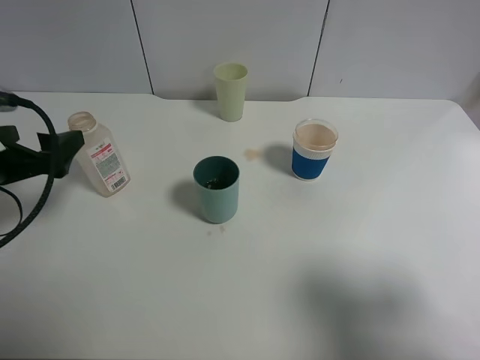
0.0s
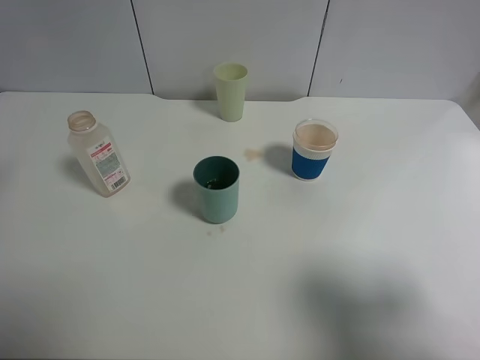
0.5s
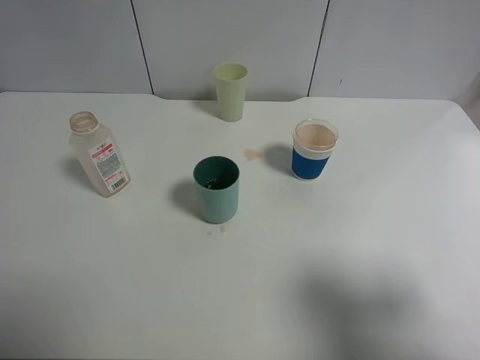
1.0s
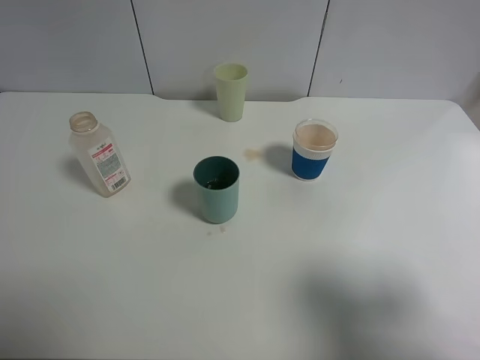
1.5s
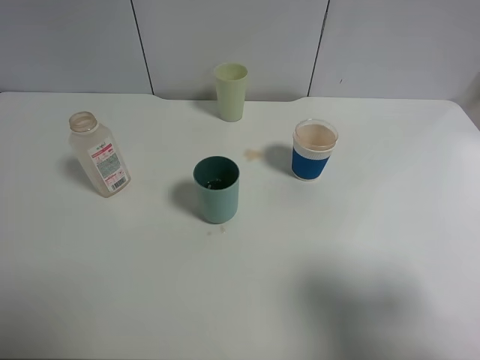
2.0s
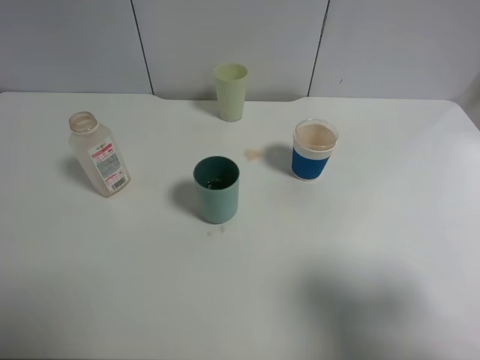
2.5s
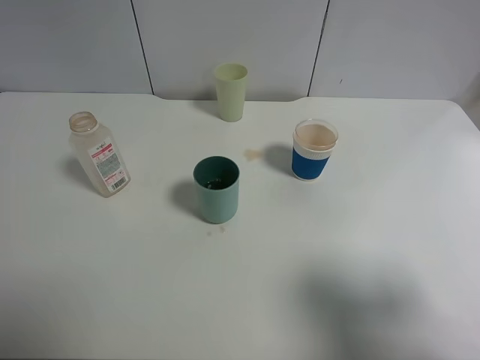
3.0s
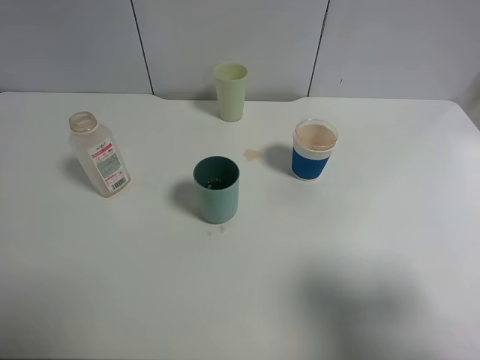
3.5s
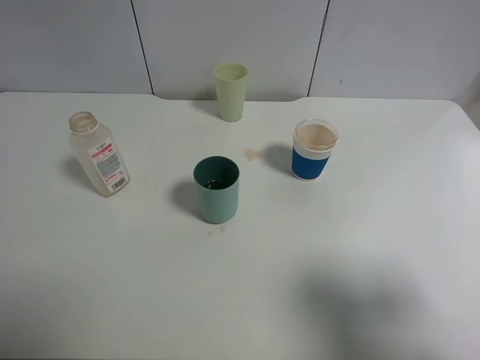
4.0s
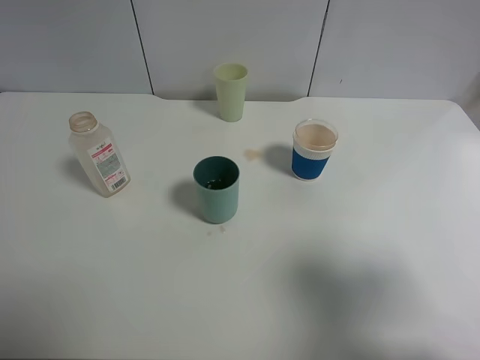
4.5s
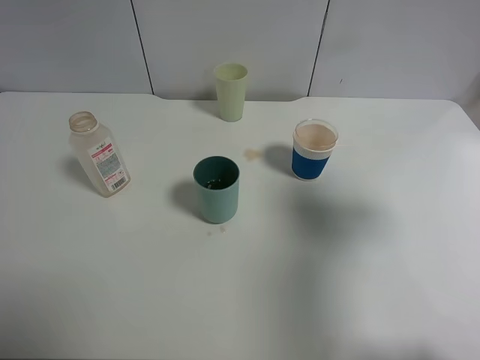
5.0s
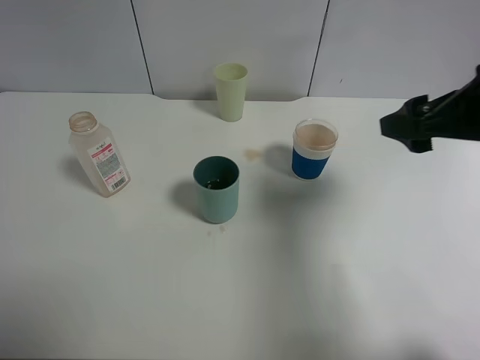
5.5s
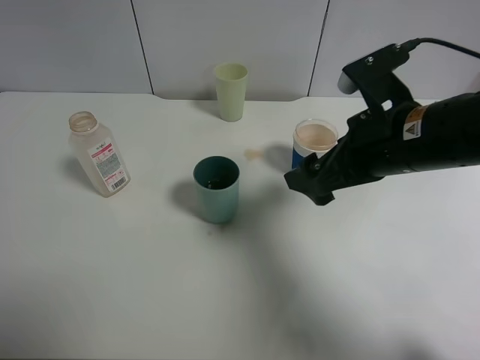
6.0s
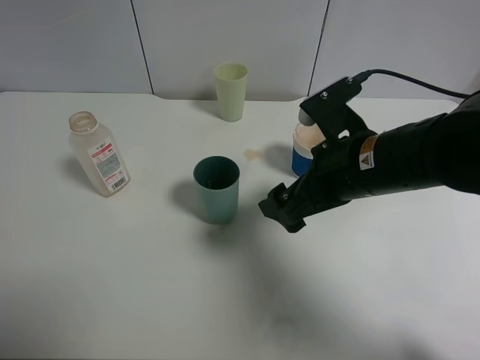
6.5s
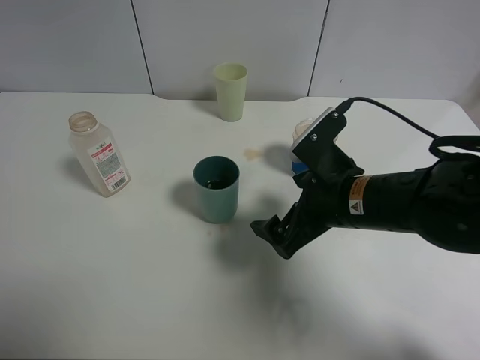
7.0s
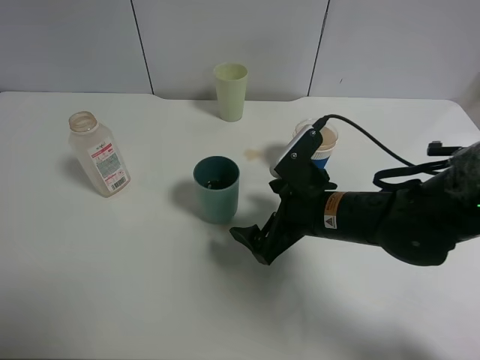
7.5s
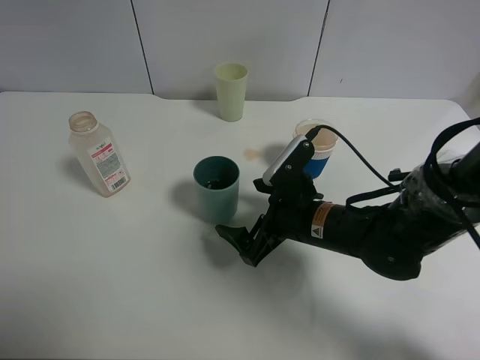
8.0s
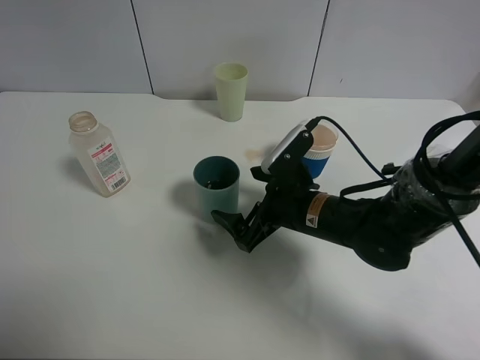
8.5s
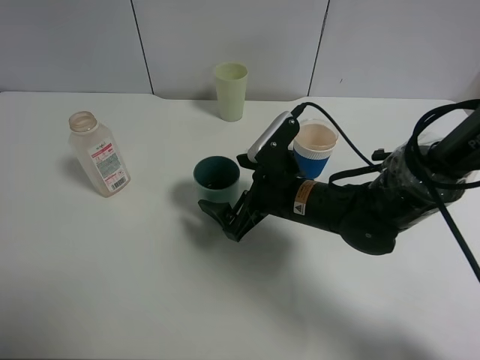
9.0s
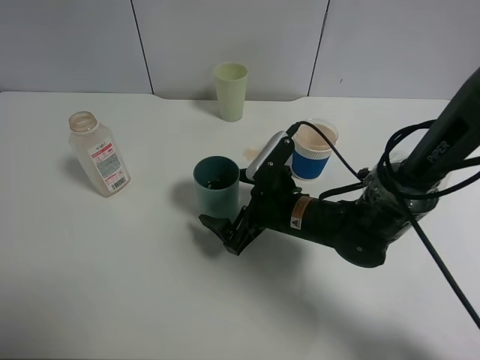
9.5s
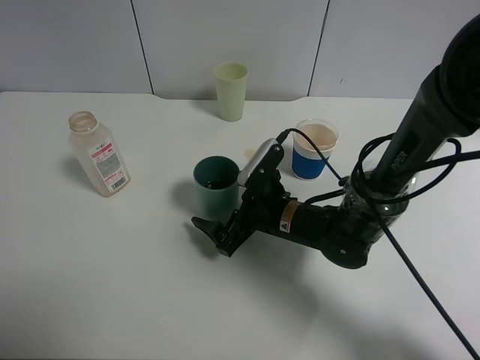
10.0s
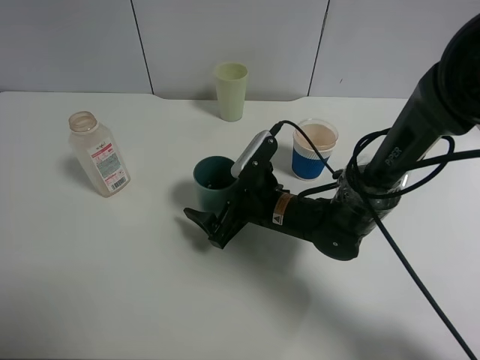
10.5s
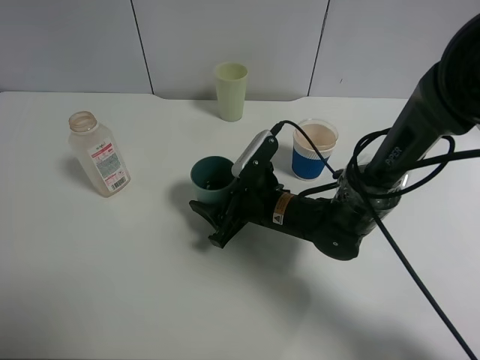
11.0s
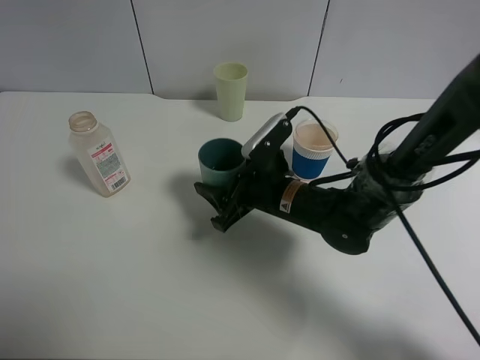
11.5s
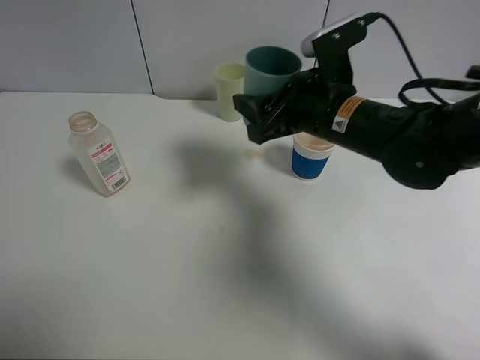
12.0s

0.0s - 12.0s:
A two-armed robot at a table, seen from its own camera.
Task of the whole recording: use a clamp to hold the bottle of the drink, pour the beverage into a random cup, then clamp the cup containing the drink and pour the drink into another random cup.
0.0s - 2.0s: The left gripper moves backward and upward, approximately 20 cm.
2.0s - 4.0s: Both grippers stay put.
4.0s - 6.0s: The right gripper heads forward and to the left, covering about 25 cm.
6.0s - 8.0s: The right gripper shifts approximately 15 cm downward.
8.0s - 10.0s: The right gripper shifts by some 5 cm.
10.0s - 12.0s: The right gripper travels upward by roughly 15 cm, and closes up.

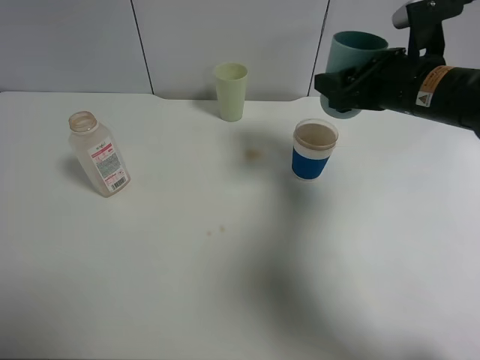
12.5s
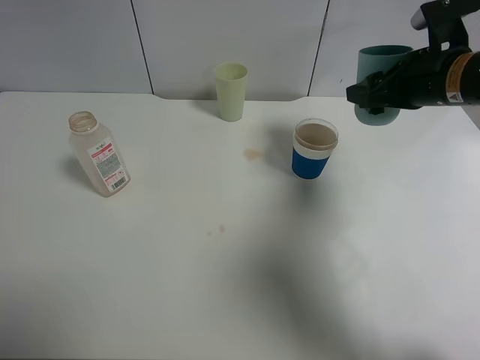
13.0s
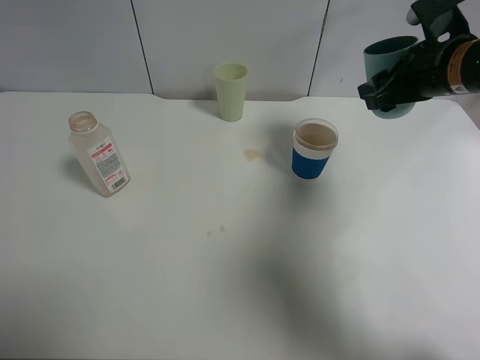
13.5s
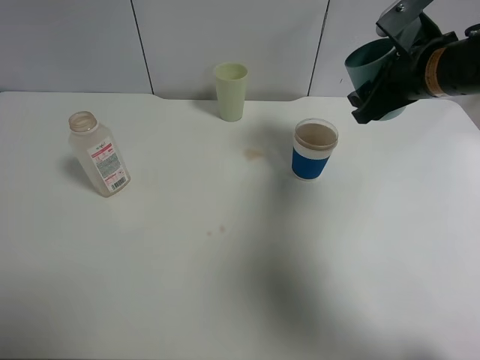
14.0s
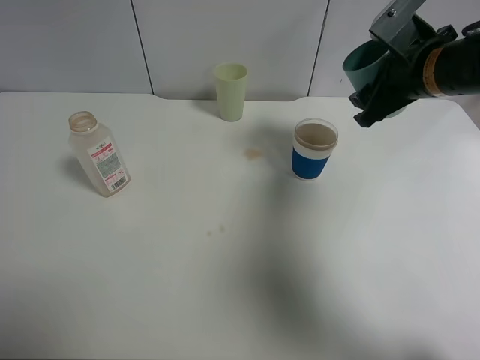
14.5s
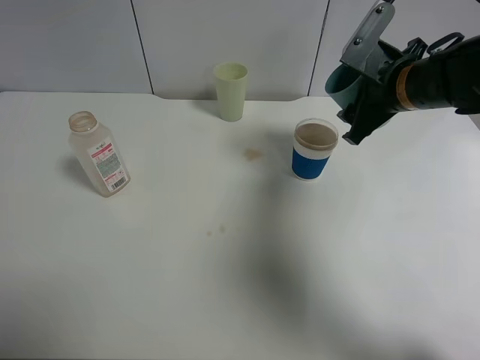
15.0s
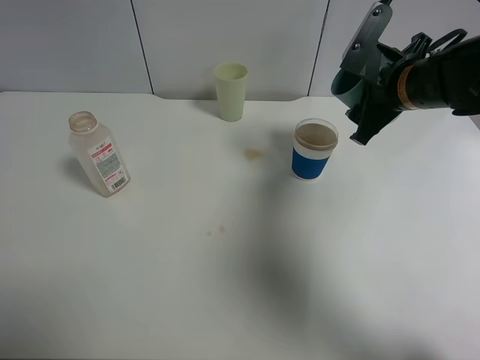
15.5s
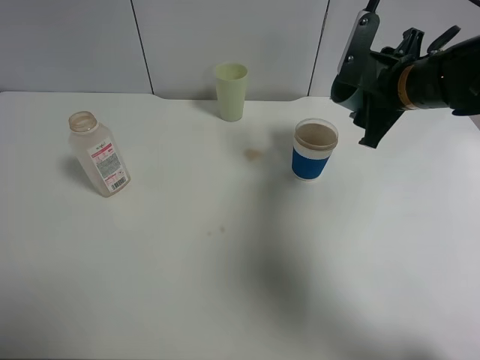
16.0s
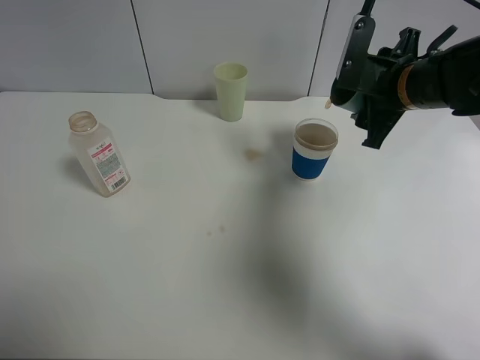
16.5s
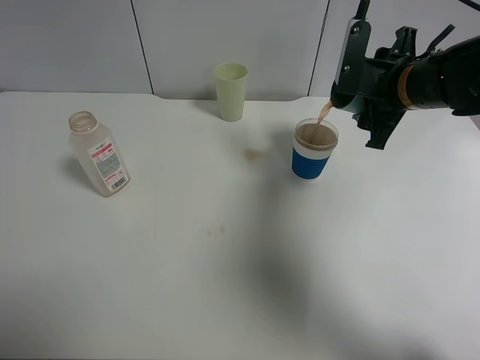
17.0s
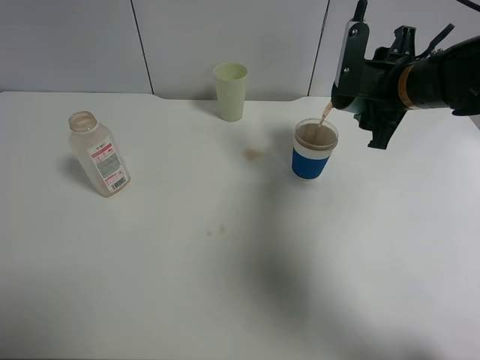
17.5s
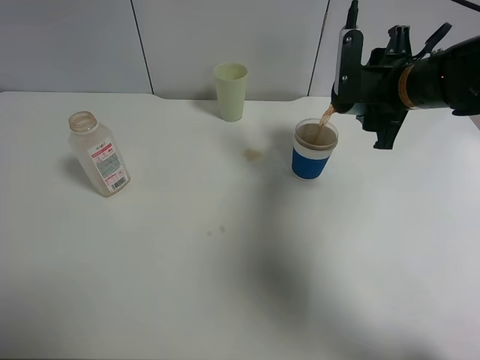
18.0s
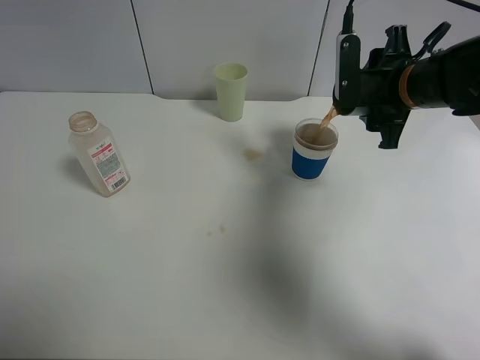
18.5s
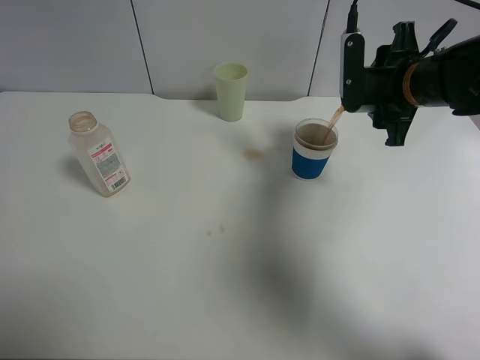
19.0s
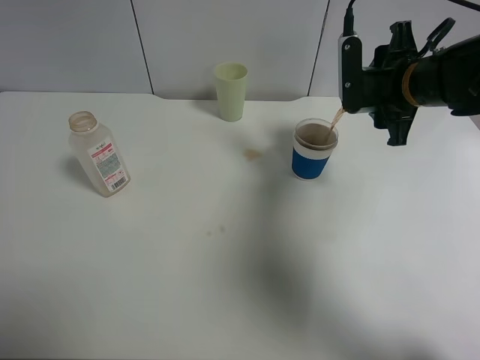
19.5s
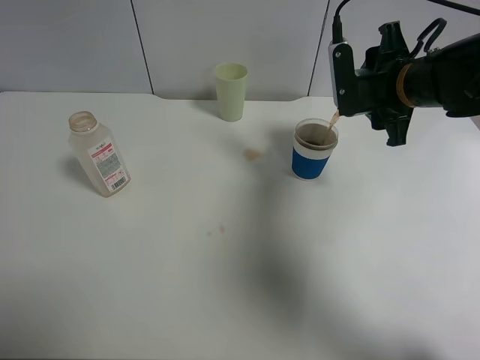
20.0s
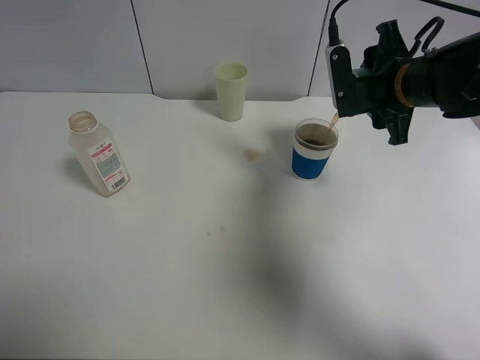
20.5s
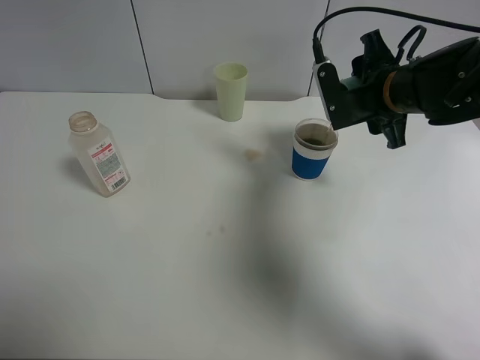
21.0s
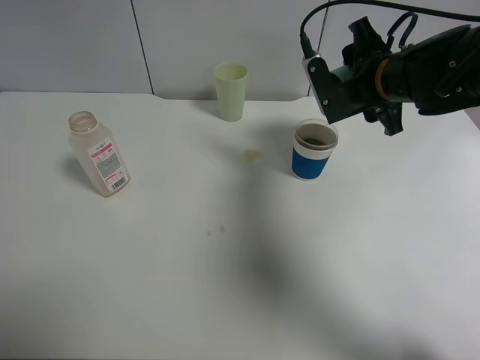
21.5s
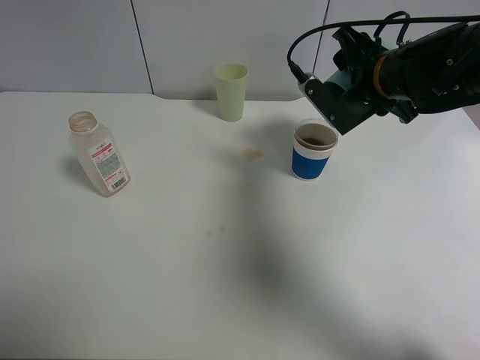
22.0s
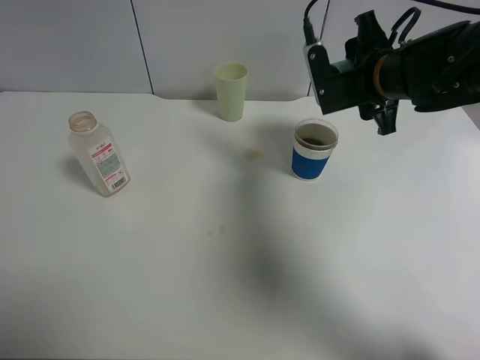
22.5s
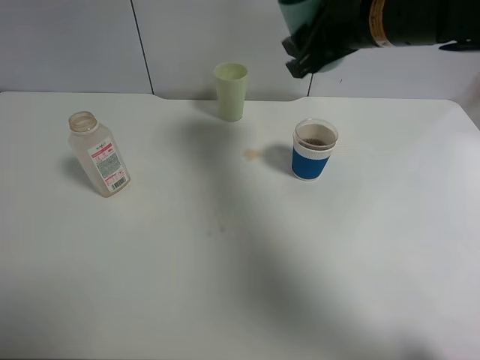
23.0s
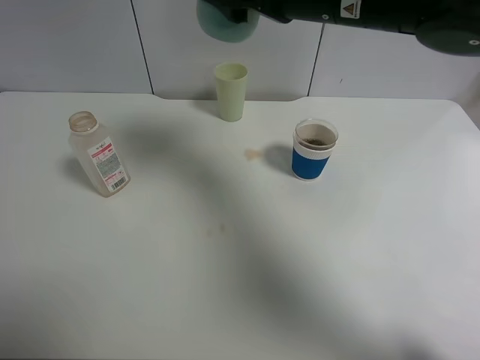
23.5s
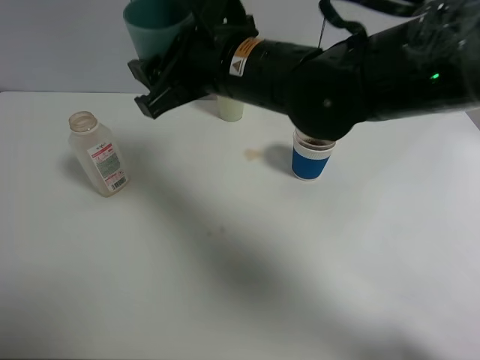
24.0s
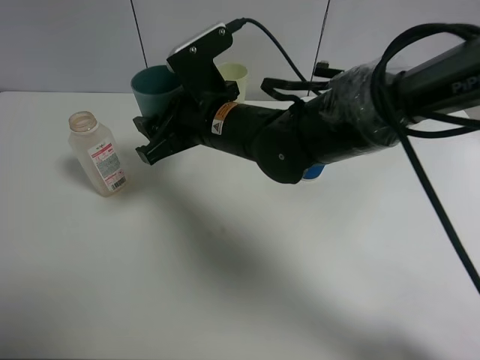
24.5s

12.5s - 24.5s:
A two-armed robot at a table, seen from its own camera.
Task of the whole recording: use a clamp to hold the bottle of the drink, pour the beverage into a random cup, then clamp the cup containing the drink and pour the drink into another random cup.
Step, 12.5s - 21.5s: Pour the drink into the paper cup with right gripper.
16.5s - 18.5s: The grippers move only a little.
18.5s - 20.5s: There are only small adjustments of the grippers.
22.5s - 24.5s: The right gripper shifts some 20 cm to the left.

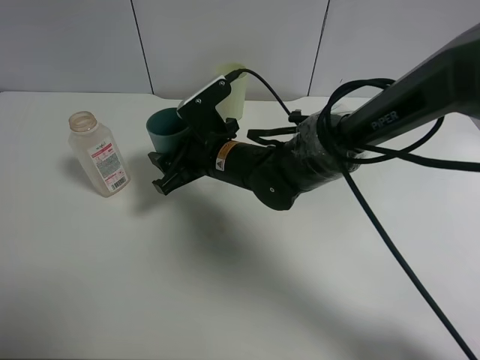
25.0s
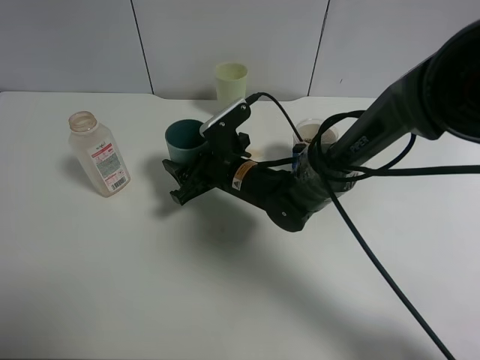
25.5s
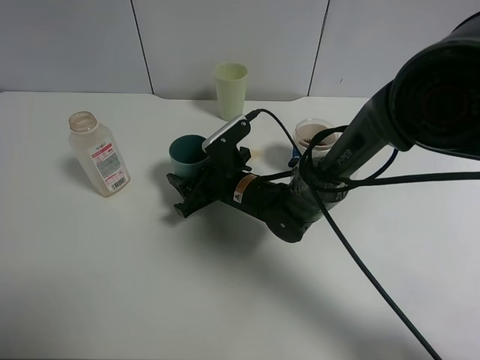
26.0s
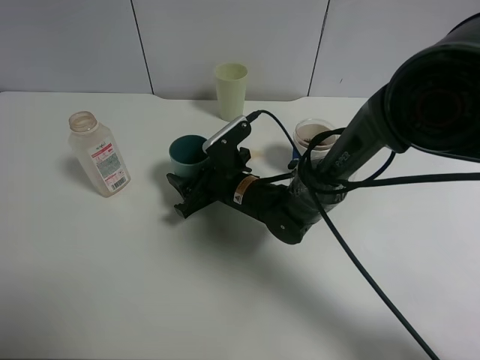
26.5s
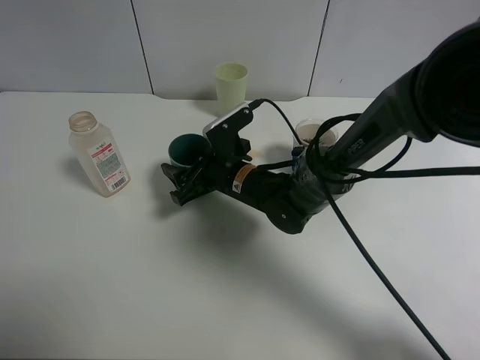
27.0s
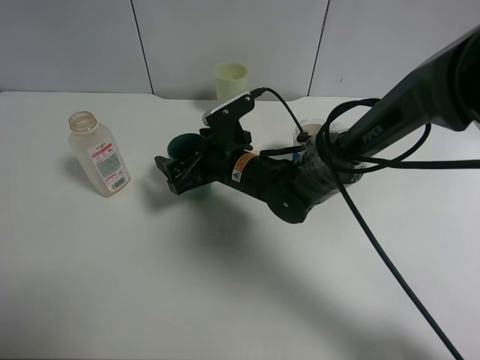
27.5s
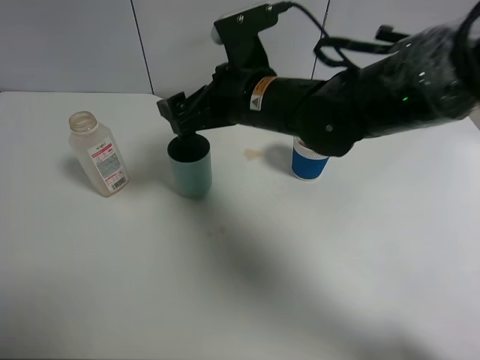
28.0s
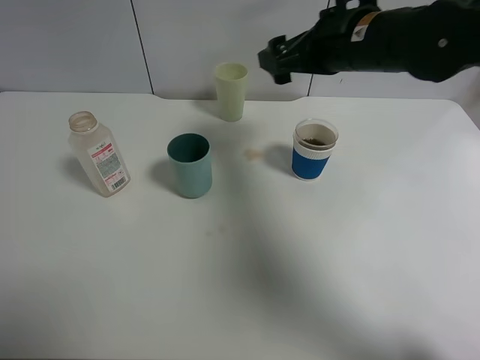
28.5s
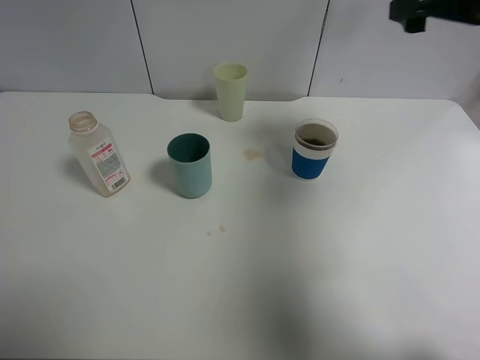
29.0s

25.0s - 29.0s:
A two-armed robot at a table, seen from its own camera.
Task of the whole recording: use a clamp to hold the bottle of the drink, pour the beverage into a random cup, then clamp the cup containing the drink and pour the drink into another random cup.
Step, 25.0s - 27.5s: Place the blue plastic cup on the table with right gripper.
25.0s - 27.0s: The right gripper opens its fingers.
27.0s - 29.0s: The right gripper shifts some 35 cm upward and to the right, and opens up.
